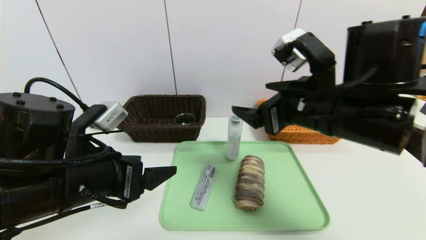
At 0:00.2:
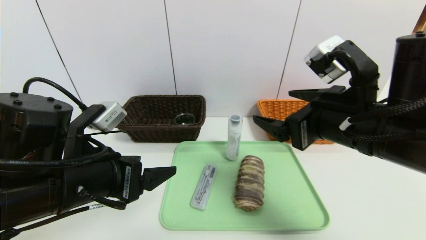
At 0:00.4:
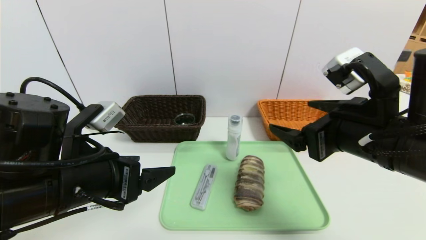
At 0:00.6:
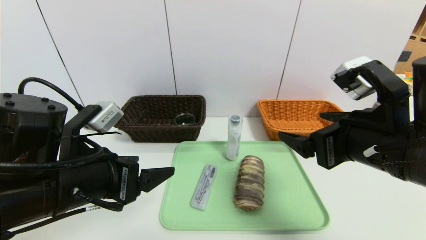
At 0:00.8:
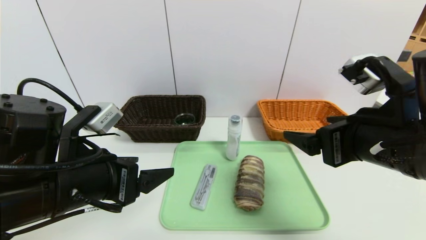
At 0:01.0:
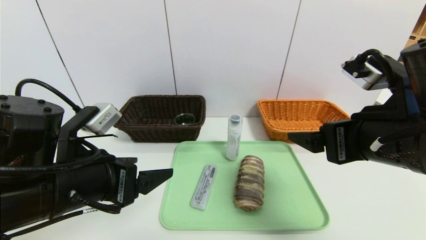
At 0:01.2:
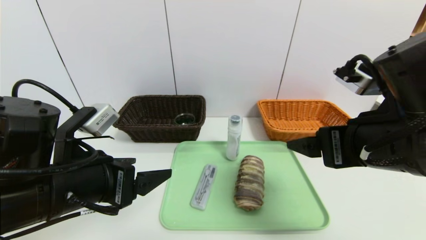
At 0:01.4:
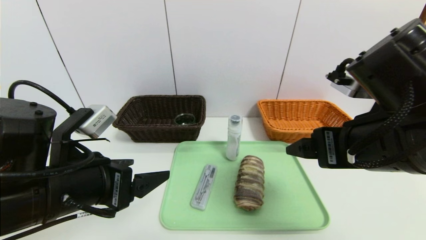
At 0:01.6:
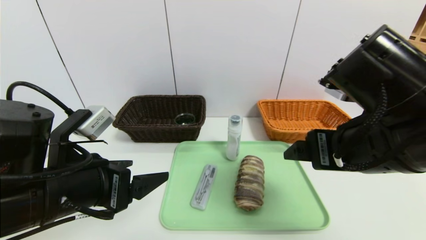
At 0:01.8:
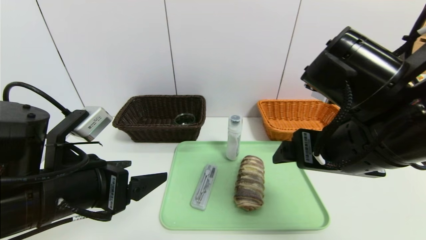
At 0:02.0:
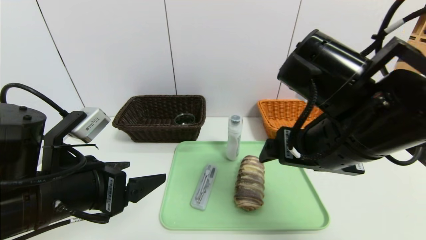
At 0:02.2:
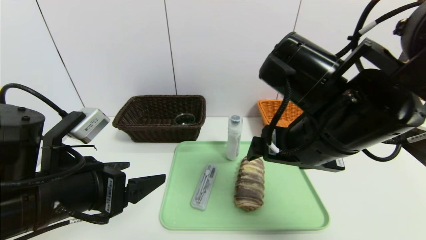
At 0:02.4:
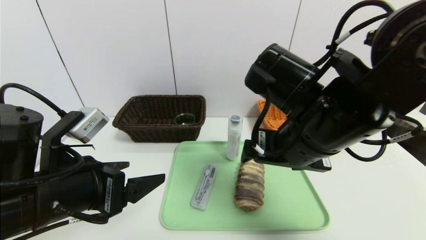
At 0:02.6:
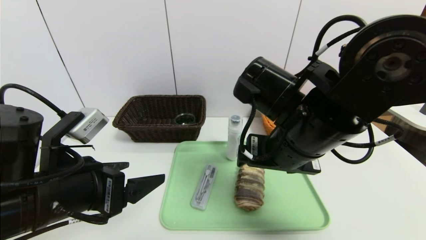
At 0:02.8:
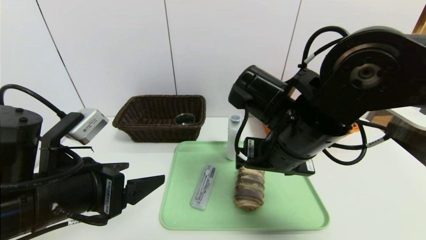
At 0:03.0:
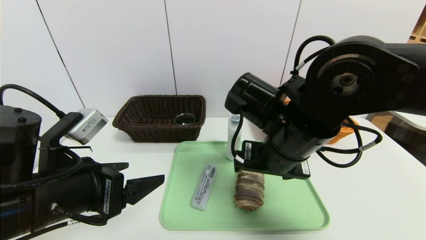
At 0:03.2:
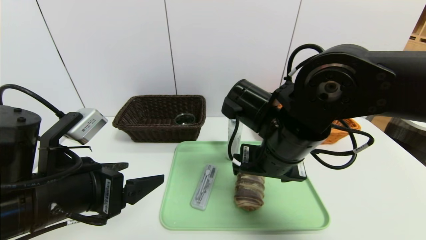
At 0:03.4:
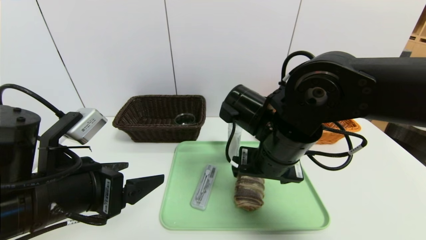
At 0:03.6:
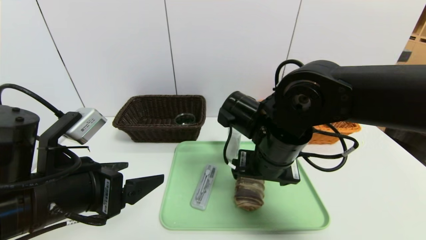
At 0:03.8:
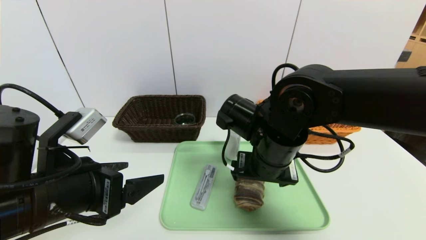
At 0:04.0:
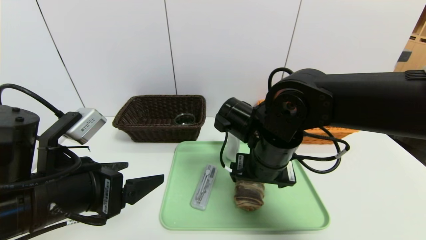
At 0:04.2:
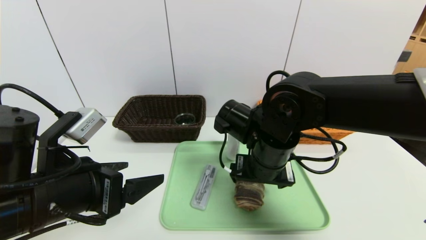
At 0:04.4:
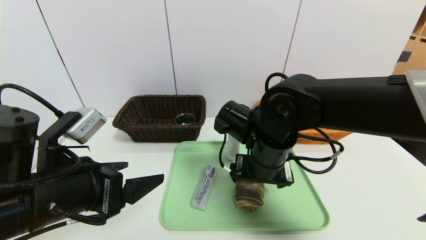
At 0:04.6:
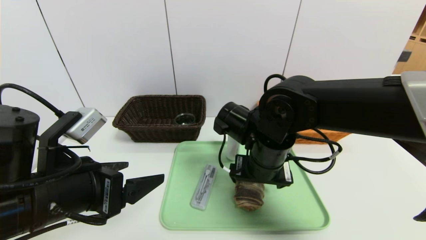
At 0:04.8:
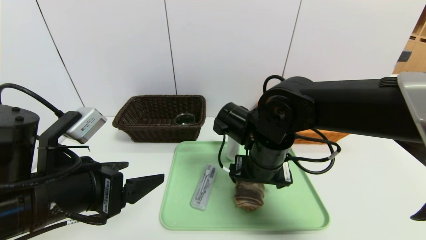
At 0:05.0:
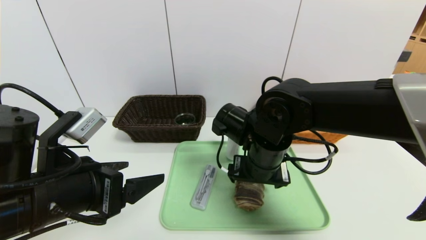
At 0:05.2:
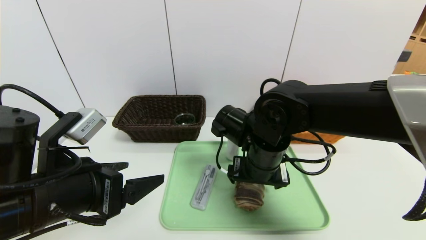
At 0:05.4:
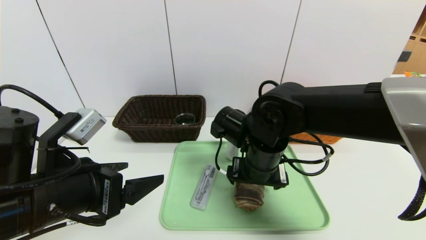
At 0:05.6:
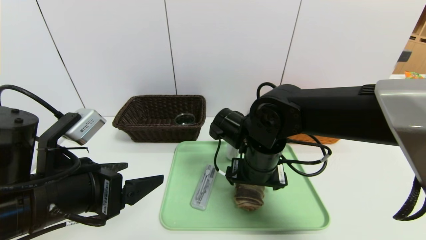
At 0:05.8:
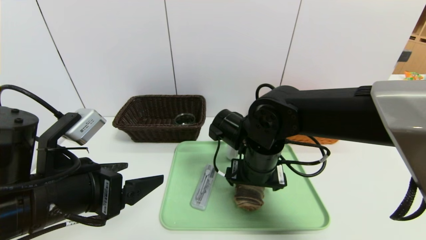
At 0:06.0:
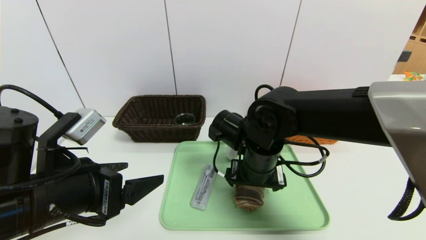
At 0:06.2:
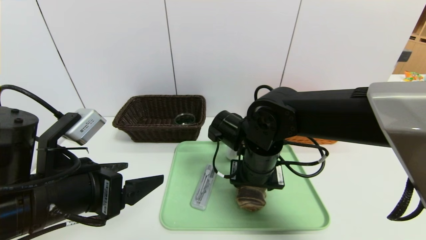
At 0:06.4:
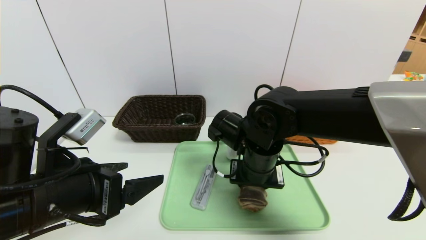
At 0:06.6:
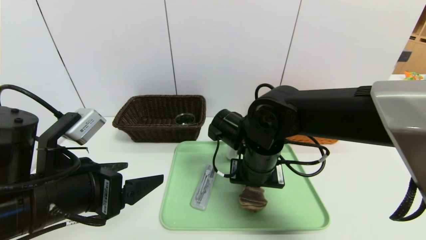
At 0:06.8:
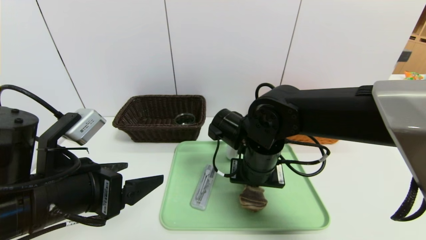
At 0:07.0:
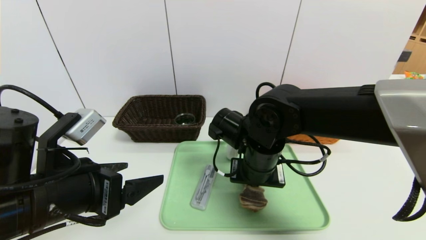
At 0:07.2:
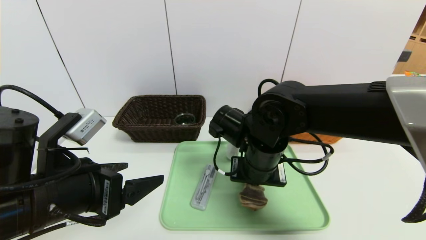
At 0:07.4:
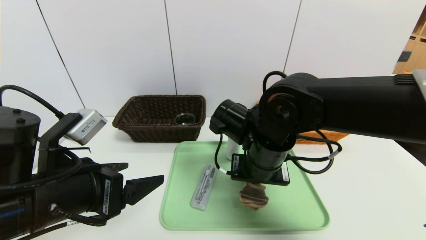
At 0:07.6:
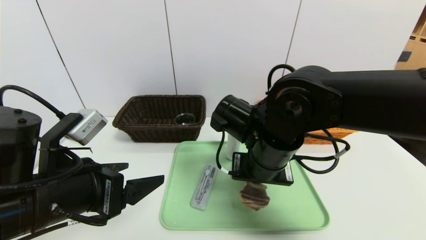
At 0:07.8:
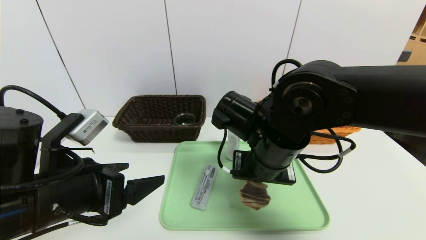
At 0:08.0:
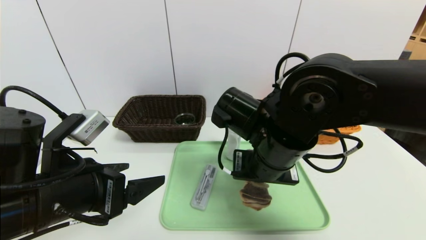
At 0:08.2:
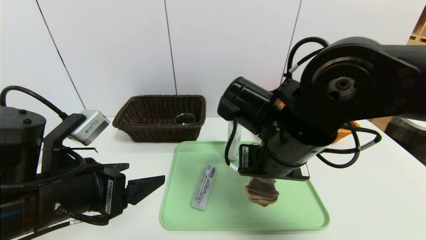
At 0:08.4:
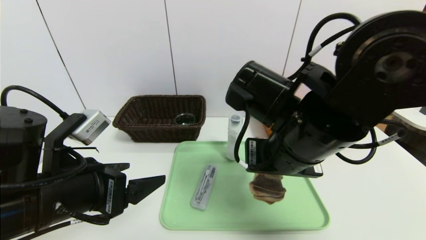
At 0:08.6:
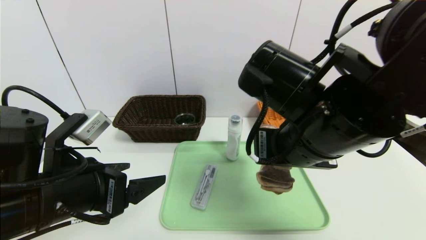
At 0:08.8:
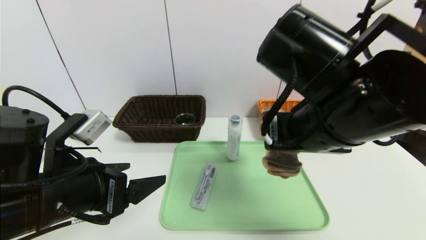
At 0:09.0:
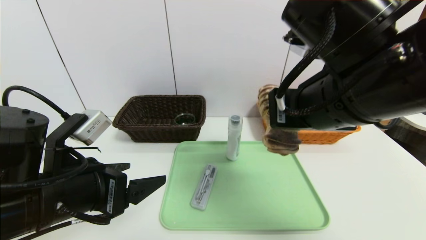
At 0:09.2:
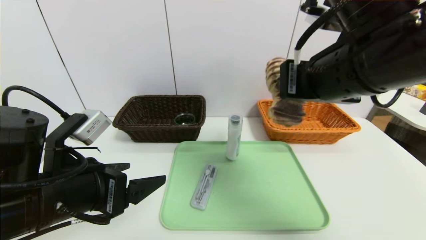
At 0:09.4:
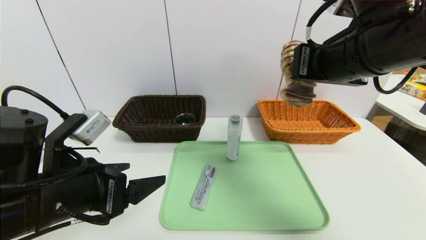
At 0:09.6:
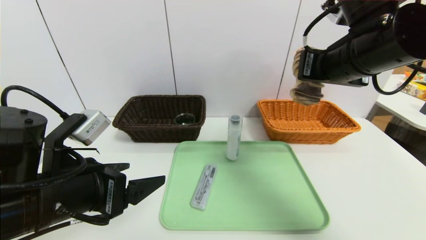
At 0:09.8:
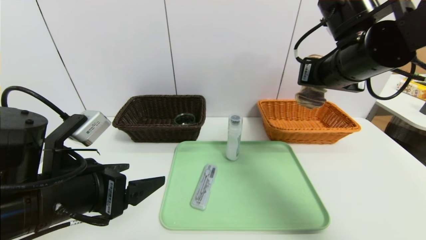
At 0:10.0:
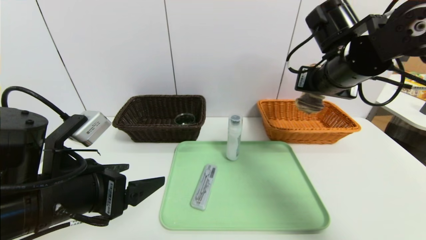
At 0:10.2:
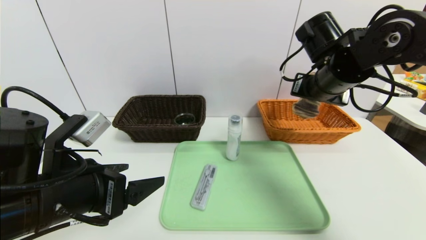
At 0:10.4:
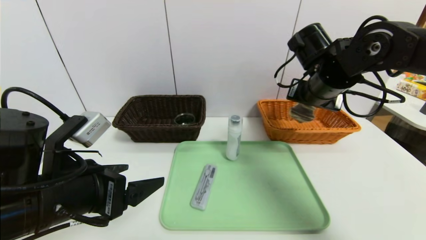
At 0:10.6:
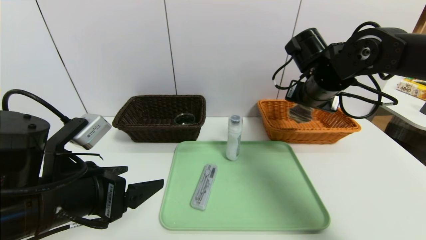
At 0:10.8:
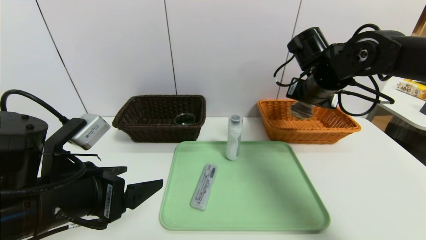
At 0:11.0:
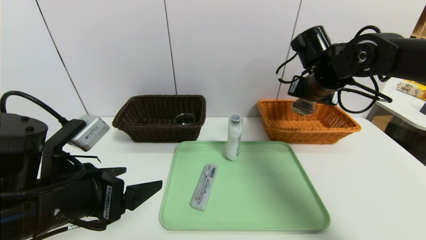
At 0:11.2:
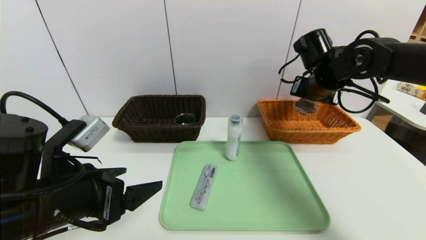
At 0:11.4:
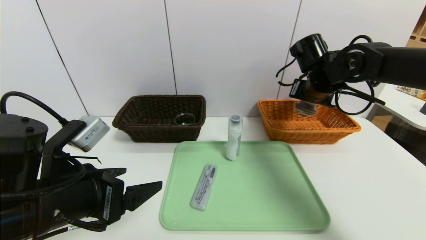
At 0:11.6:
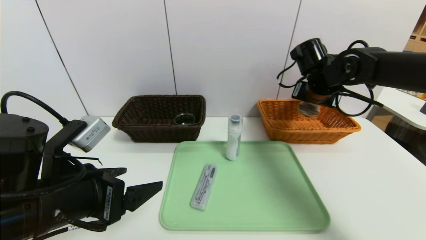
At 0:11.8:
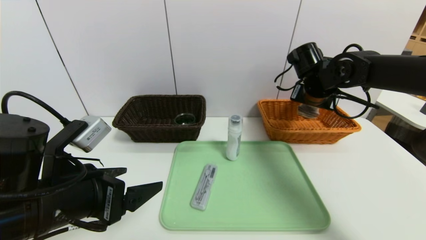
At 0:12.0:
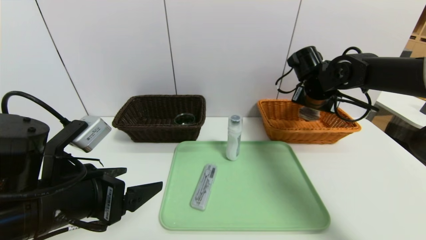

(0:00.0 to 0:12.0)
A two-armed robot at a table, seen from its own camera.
Task of the whole recording: place the food in the right basket with the right gripper, and place the non food items in the left basket with the left gripper.
0:00.0 - 0:01.6: The right gripper moves backward, about 5 cm.
0:01.6 - 0:03.0: The right gripper moves to the left and forward, roughly 10 cm.
0:03.0 - 0:04.4: The right gripper ends up roughly 5 cm from where it was.
0:04.4 - 0:06.0: The grippers move only a little.
0:06.0 - 0:07.6: The right gripper changes place by about 5 cm, and closes its fingers.
0:07.6 - 0:09.0: The right gripper travels upward, to the right and backward by some 15 cm.
0:09.0 - 0:10.4: The right gripper goes roughly 15 cm forward and to the right.
0:10.4 - 0:12.0: The right gripper goes approximately 5 cm forward.

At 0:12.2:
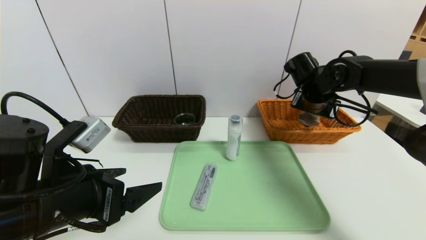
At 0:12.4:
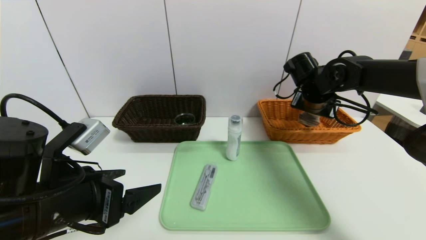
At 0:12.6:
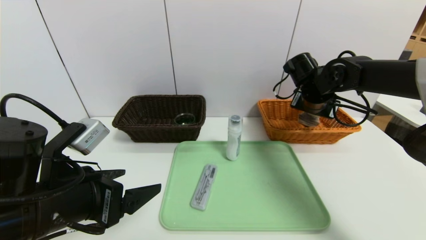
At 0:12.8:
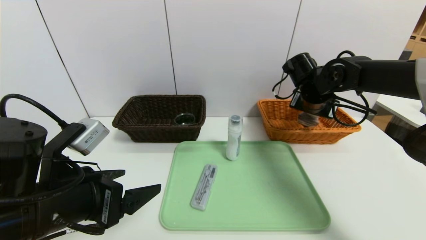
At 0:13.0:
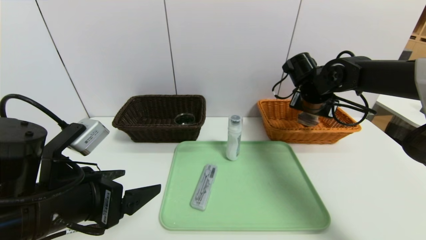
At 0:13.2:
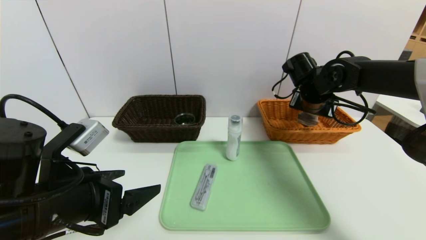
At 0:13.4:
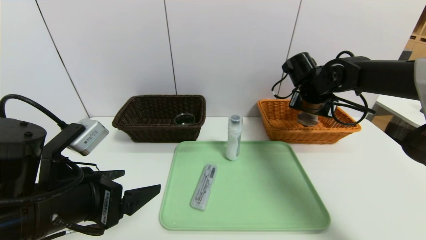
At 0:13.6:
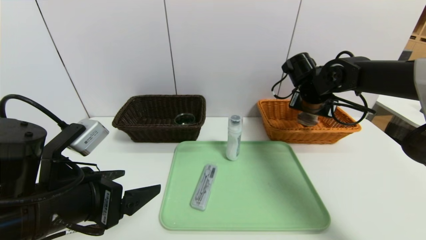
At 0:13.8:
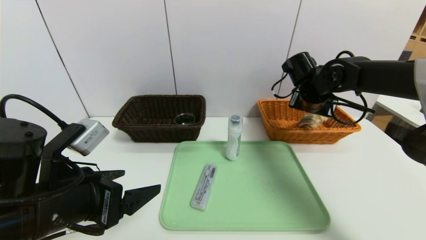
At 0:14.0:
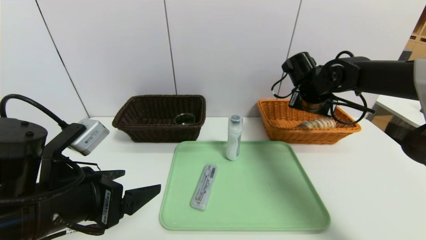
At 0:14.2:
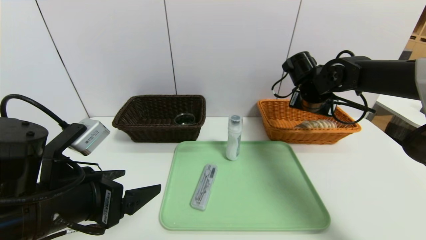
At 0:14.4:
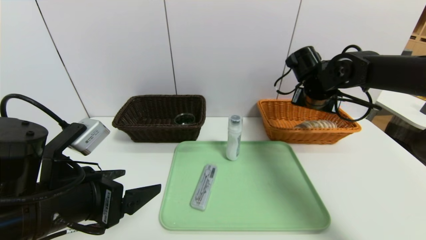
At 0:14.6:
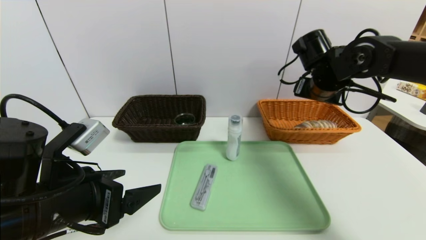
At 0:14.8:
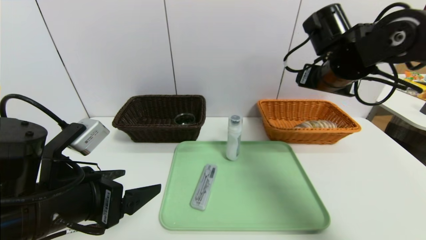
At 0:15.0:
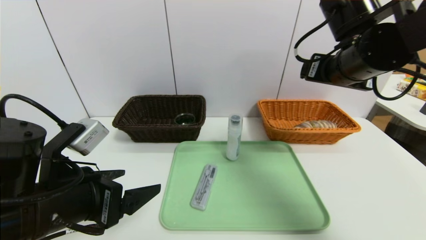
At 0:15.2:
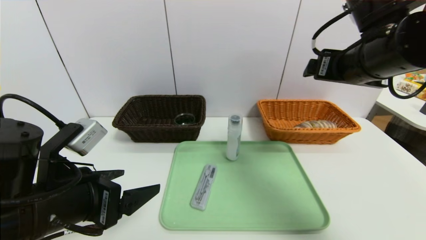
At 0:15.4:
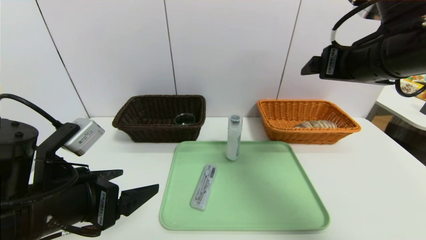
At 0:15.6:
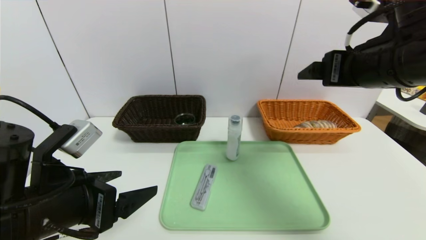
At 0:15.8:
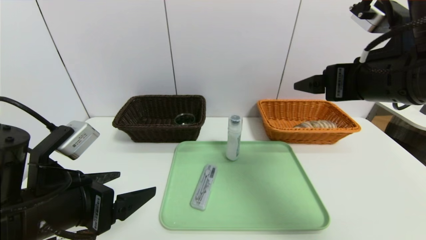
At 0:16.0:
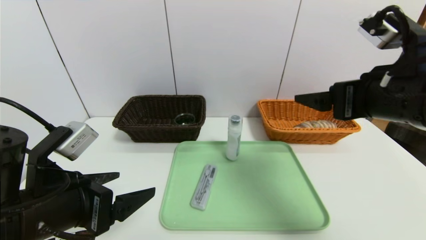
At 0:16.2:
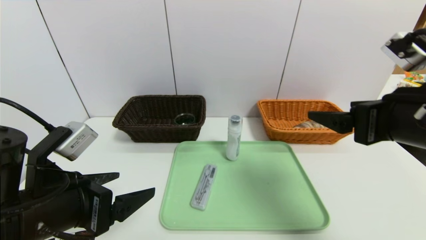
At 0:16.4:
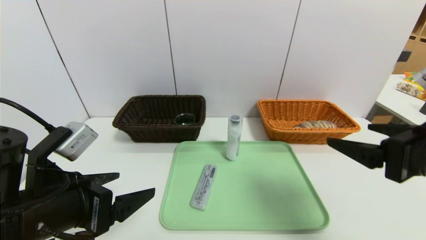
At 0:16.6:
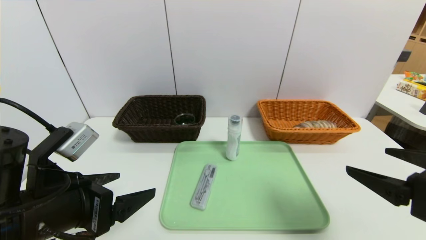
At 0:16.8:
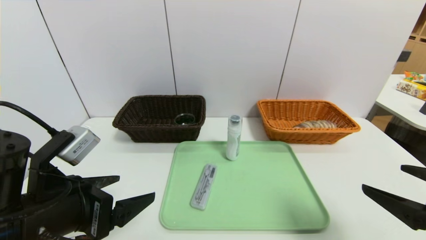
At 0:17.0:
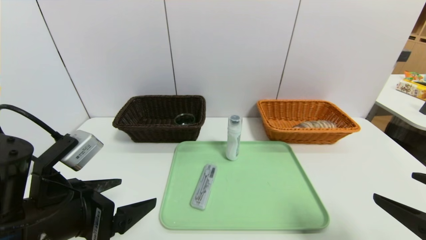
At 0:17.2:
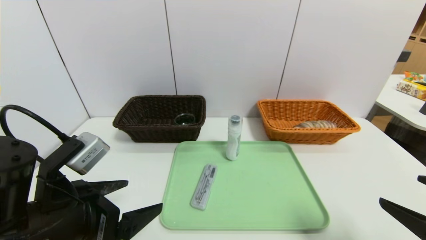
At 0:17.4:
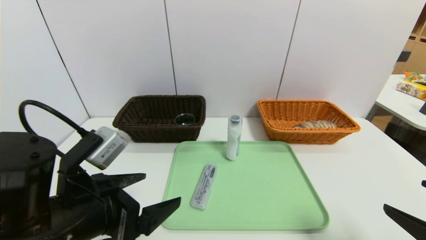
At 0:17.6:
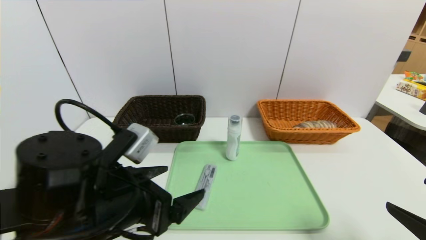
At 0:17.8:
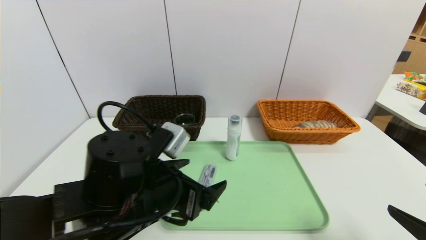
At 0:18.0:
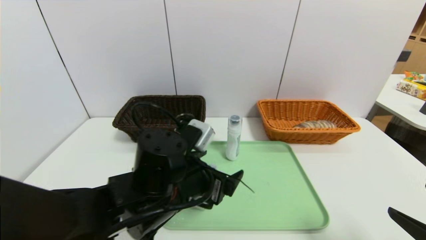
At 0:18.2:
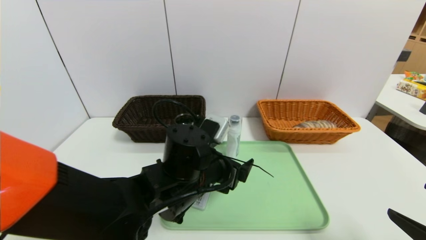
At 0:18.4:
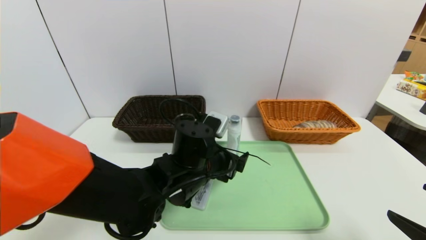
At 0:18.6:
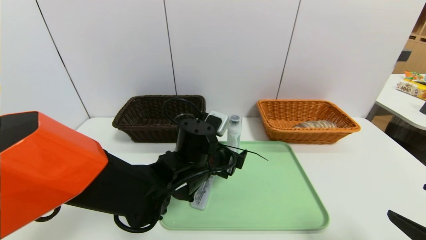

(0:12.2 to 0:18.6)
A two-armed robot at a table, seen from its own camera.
Task of the whole recording: place the food in the right basket with the right gripper, and place the non food items in the left basket with the left gripper.
Step, 0:12.2 - 0:14.2: Grasp the long bread and put it in the right basket.
0:12.2 - 0:13.8: The right gripper opens.
0:13.8 - 0:15.4: The right gripper heads backward and upward, covering roughly 20 cm, and opens up.
0:15.4 - 0:17.0: The right gripper heads backward, downward and to the right, covering approximately 25 cm.
0:17.0 - 0:18.6: The left gripper moves to the right and forward, roughly 25 cm.
